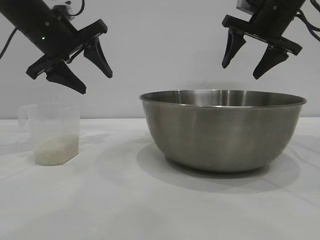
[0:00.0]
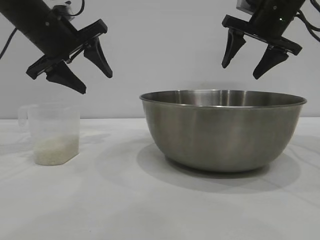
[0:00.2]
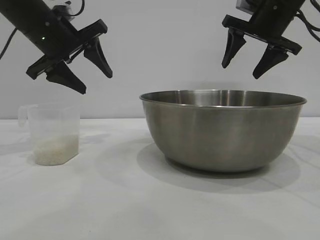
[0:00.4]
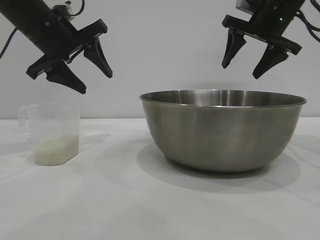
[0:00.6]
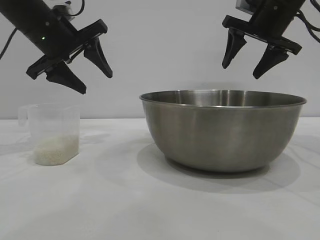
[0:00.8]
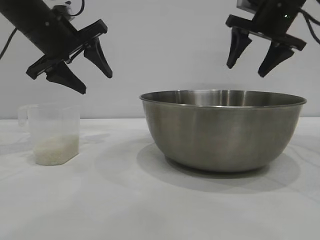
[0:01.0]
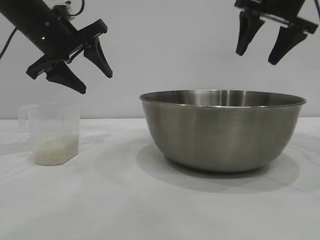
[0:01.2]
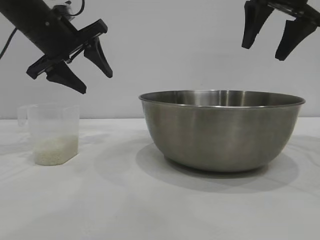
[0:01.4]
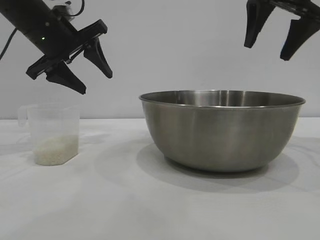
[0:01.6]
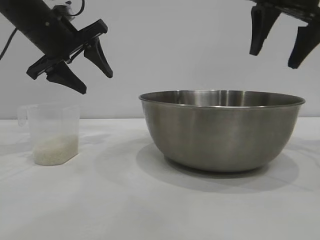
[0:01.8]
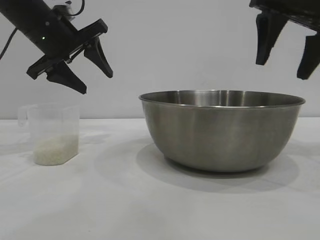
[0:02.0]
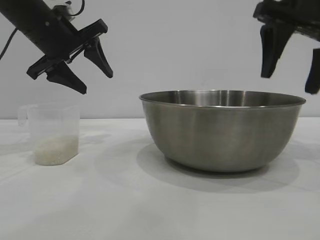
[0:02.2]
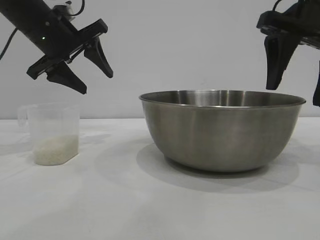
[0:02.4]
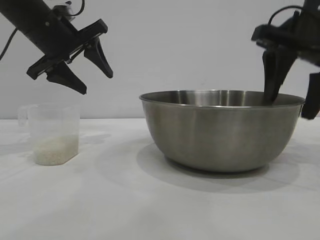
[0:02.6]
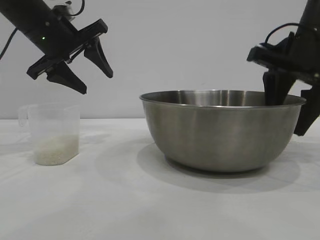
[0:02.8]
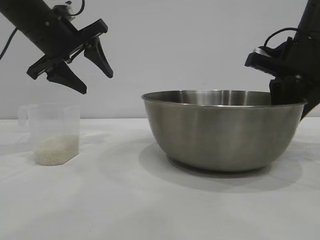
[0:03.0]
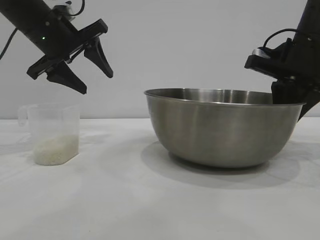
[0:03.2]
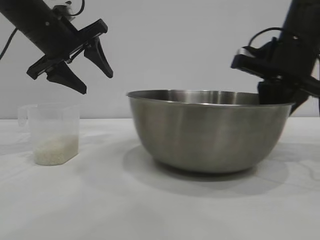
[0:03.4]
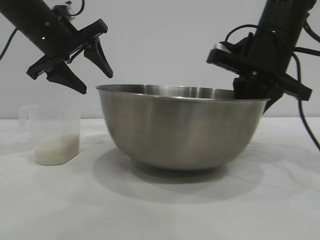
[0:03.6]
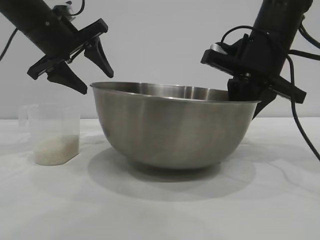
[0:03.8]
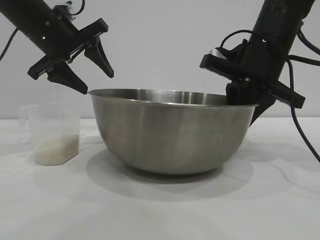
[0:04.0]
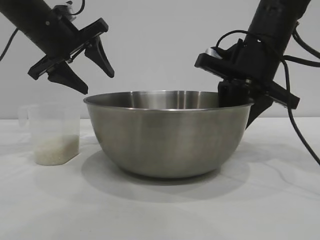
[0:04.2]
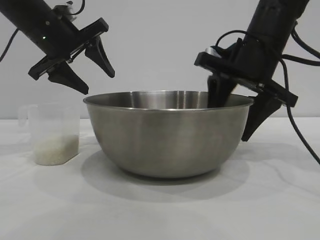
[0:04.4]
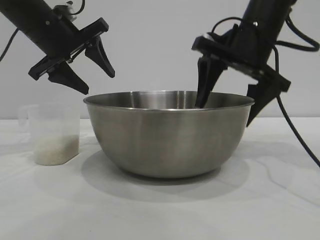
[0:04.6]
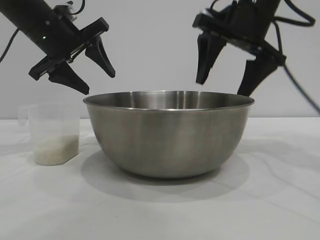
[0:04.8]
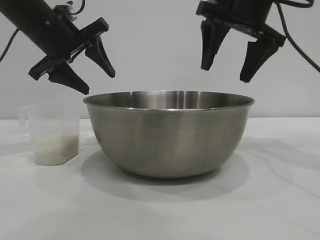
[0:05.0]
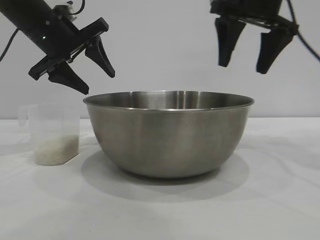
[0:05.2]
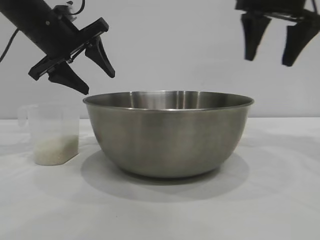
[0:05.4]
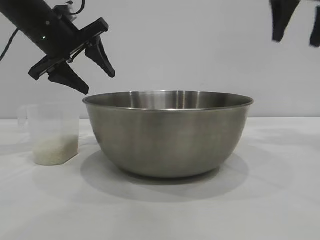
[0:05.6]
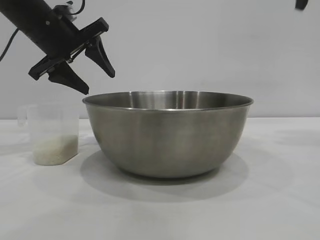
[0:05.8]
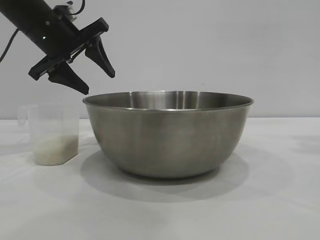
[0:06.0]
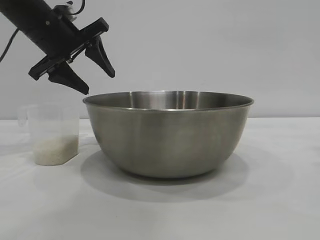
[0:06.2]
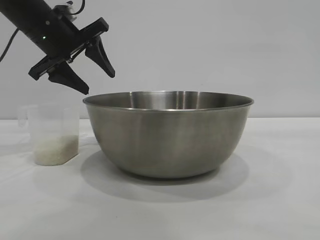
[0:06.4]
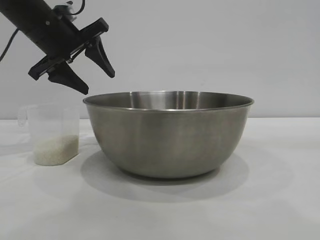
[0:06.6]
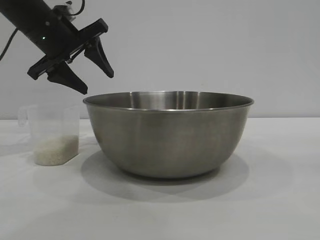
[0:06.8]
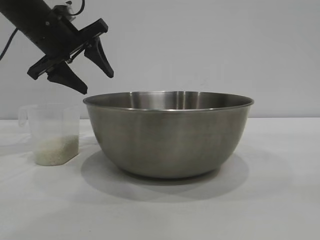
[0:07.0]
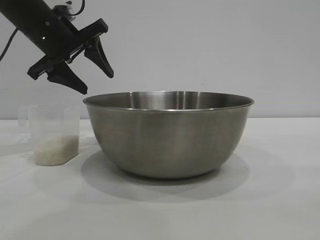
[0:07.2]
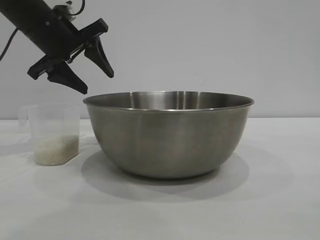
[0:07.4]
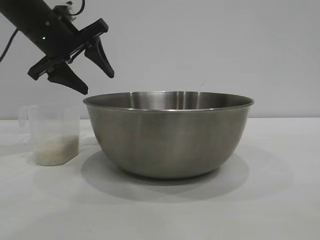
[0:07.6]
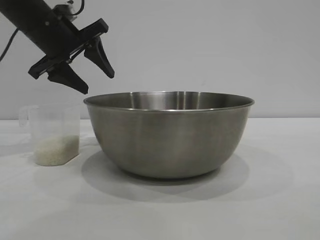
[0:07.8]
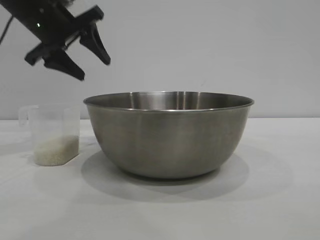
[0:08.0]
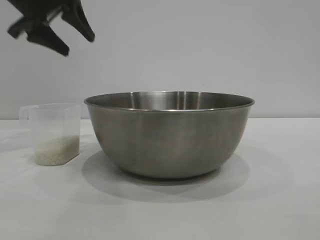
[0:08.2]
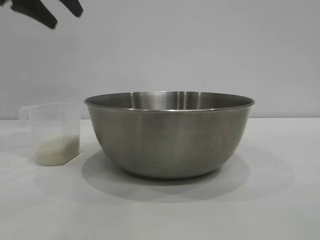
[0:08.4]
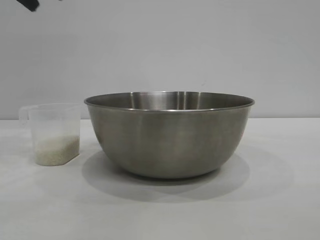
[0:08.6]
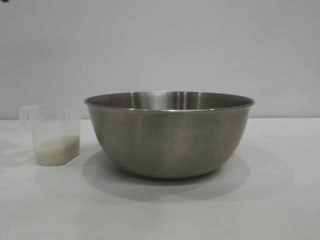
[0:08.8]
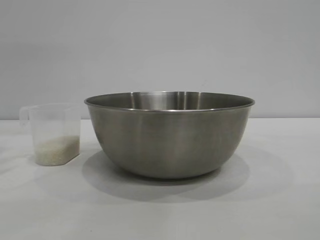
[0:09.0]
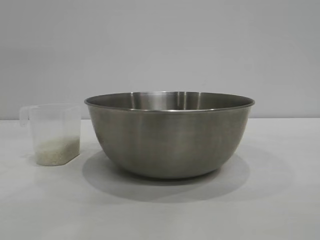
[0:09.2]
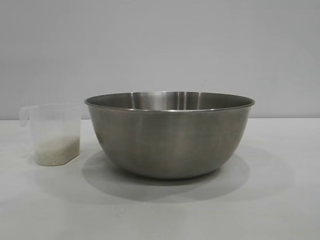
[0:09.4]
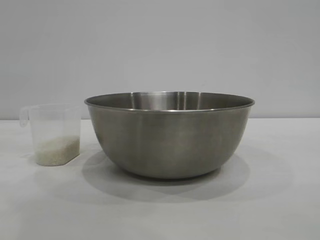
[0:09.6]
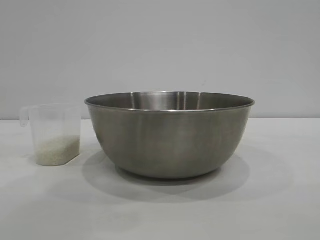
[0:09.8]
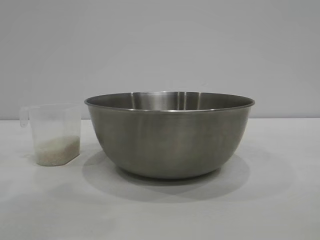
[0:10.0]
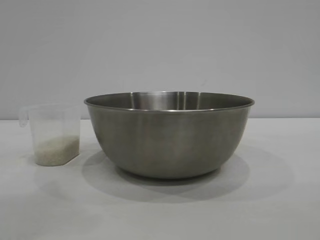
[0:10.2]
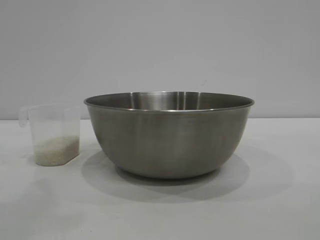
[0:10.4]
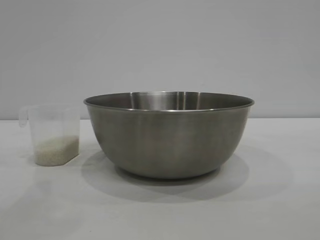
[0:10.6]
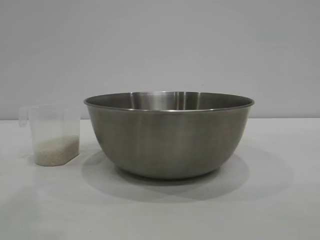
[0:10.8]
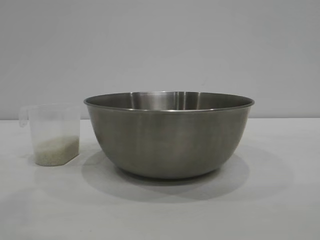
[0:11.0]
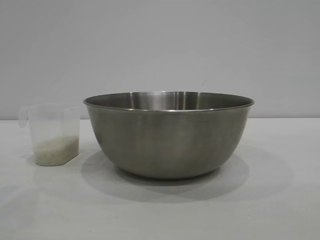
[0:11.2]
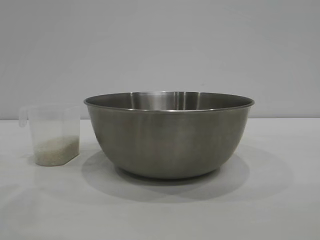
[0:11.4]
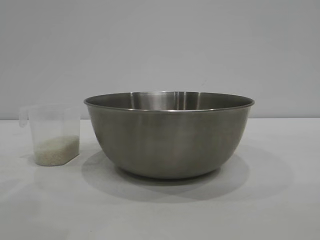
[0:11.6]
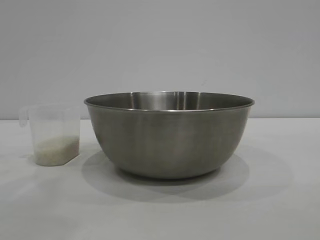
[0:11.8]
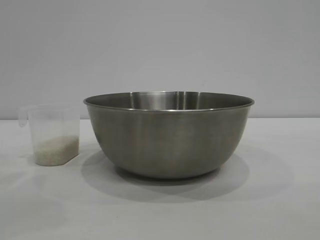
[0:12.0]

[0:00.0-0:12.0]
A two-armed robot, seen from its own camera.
Task of the whole recording: the right gripper grasp the rice container and place it in the center of the table, the left gripper grasp the rice scoop and pour the rice into the rice container.
Step, 0:00.0 to 0:04.8: Move the bowl to the center of view with the right gripper.

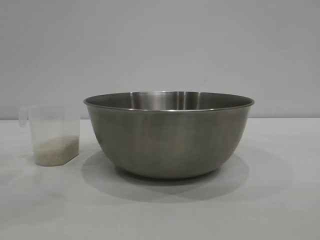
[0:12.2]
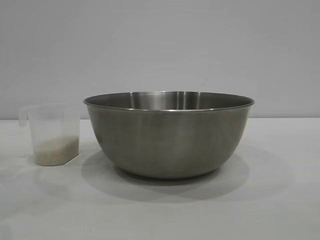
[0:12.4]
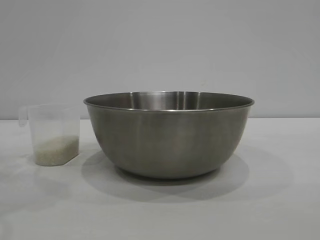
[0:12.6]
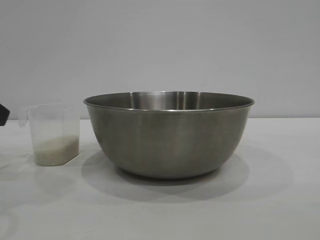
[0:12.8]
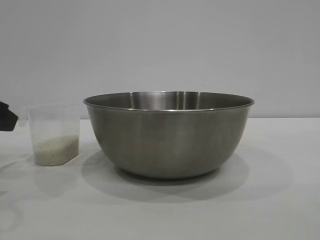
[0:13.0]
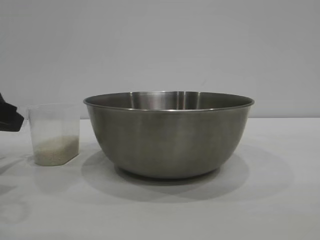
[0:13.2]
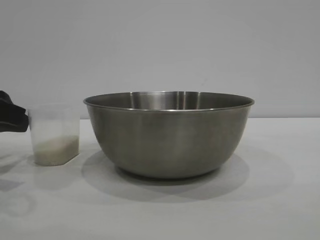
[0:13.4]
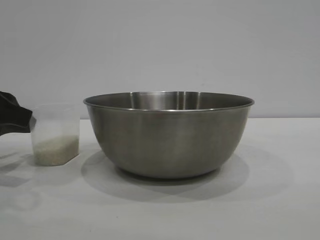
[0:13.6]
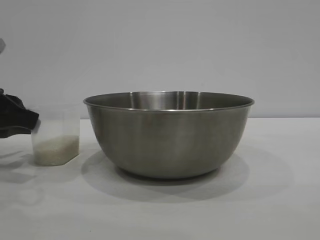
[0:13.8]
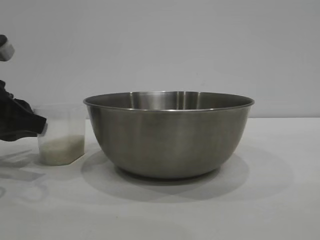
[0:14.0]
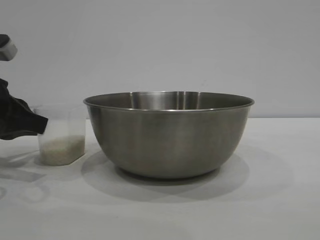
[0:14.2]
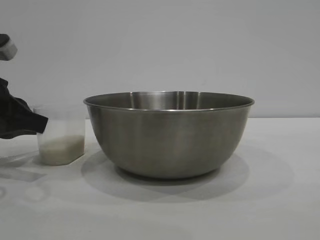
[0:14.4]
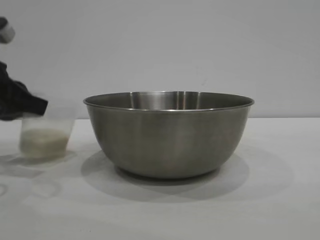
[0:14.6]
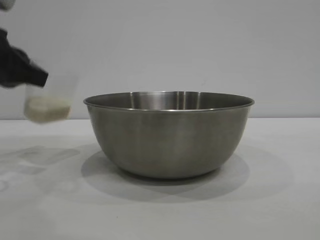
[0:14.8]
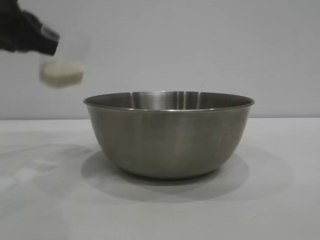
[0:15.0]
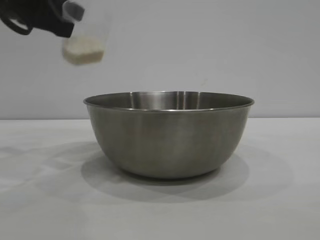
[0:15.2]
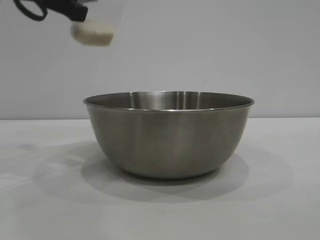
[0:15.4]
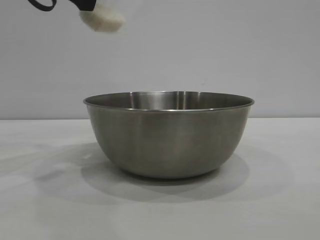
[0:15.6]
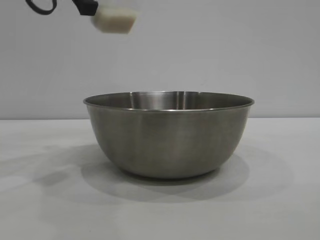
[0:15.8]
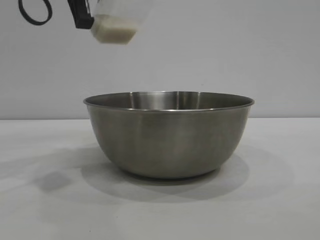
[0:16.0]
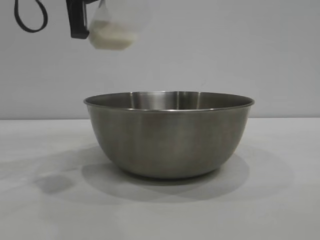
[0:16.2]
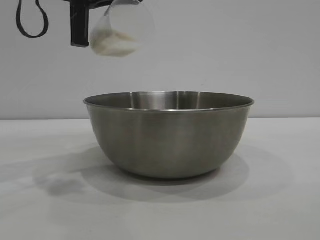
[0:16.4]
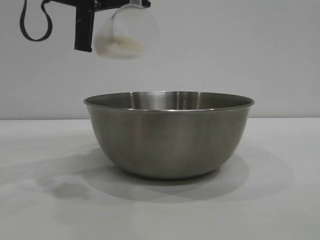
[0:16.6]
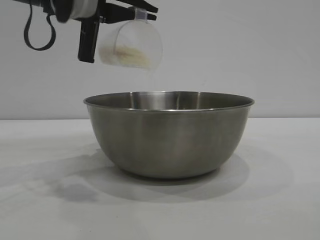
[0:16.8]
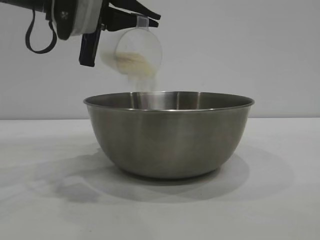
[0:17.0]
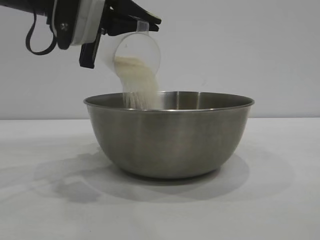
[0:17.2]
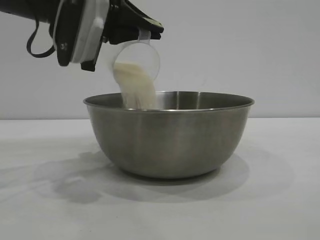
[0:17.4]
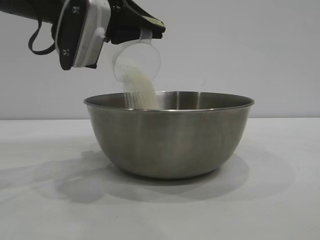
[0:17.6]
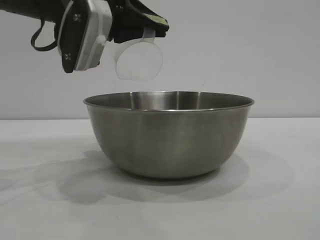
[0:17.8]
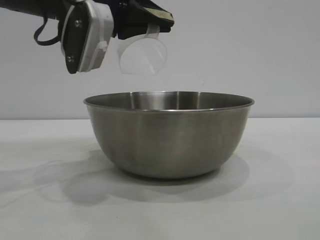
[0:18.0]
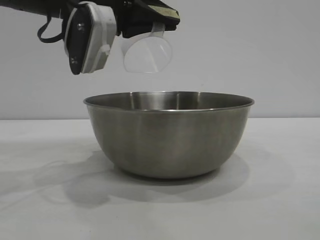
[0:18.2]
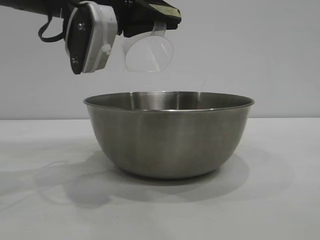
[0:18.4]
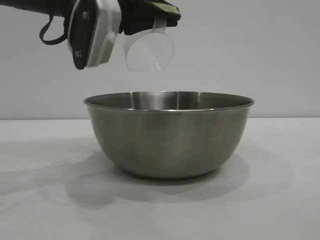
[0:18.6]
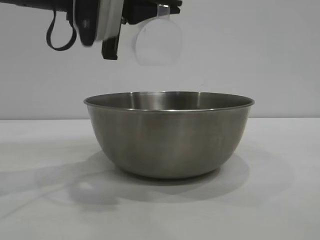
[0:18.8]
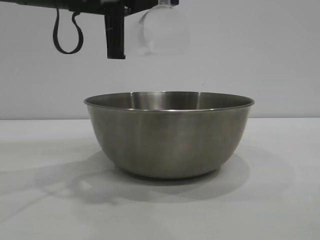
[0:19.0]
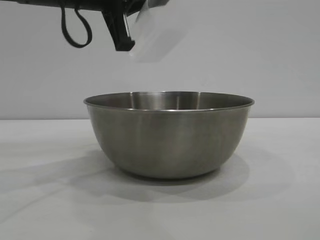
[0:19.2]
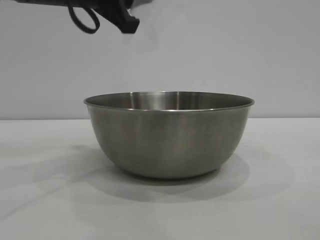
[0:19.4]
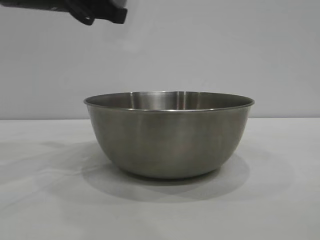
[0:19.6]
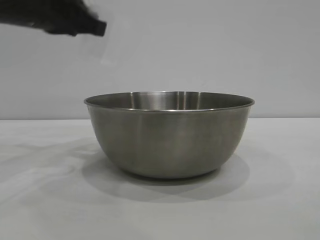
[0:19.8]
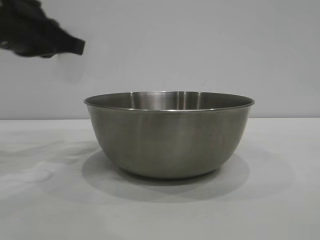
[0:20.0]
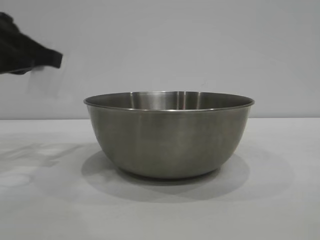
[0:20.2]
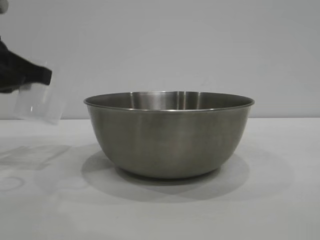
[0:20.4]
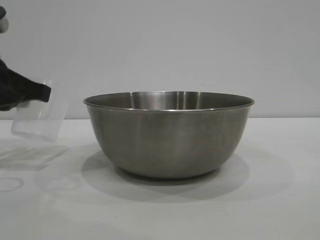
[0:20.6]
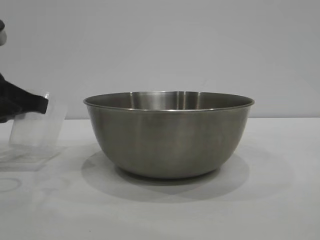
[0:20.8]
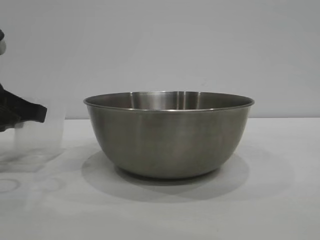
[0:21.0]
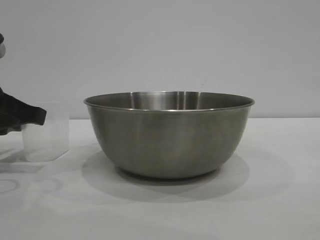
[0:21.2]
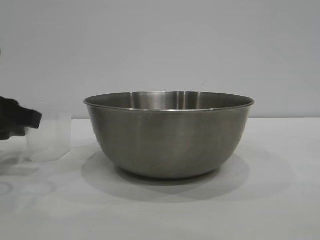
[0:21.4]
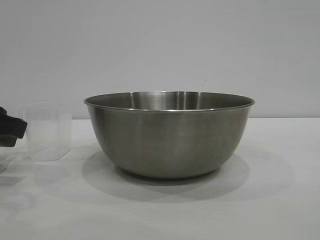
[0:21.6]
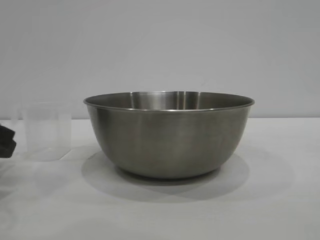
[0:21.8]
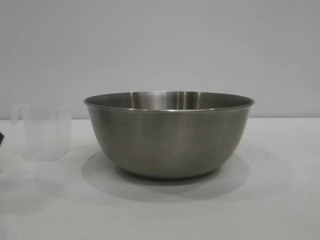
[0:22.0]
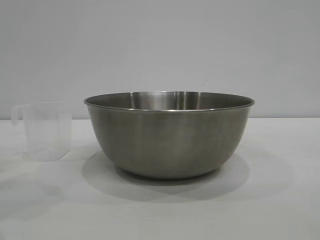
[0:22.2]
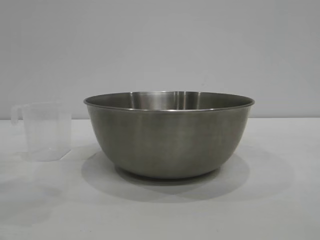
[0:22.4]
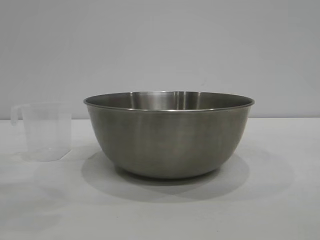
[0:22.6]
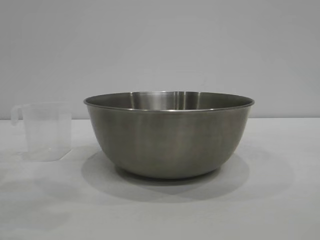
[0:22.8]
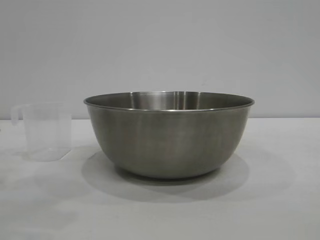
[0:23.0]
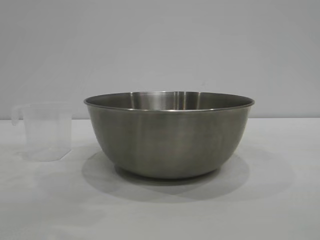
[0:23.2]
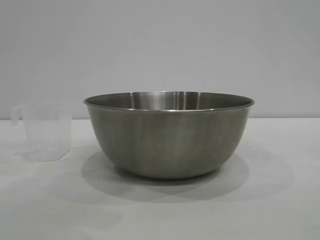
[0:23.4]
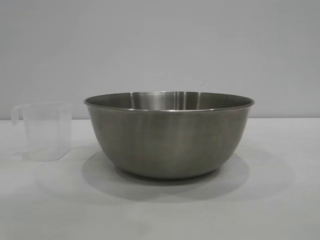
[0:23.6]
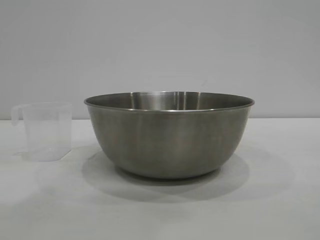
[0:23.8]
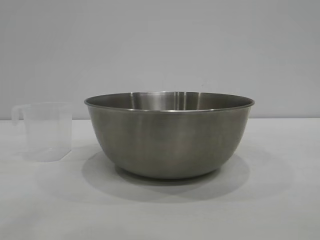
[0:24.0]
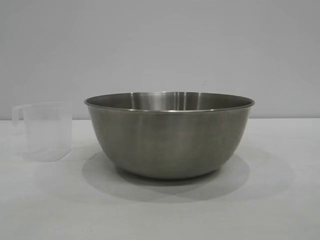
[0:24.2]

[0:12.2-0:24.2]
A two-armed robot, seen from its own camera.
Task of the whole recording: the right gripper grasp the rice container and place it in the center of the table, the left gripper grasp the rice scoop and pour the rice into the rice container.
Step, 0:12.2 to 0:14.8: Pick up the cup with rice in it with the left gripper.
Step, 0:15.0 to 0:18.0: Pour the rice from the cup into the bowl with the left gripper.
Step, 0:18.2 to 0:21.8: Place the cup on the table with the left gripper.
